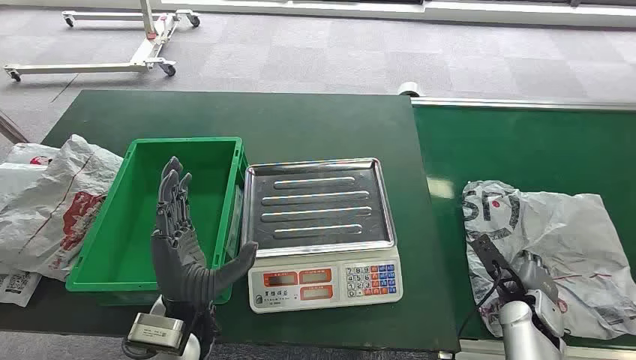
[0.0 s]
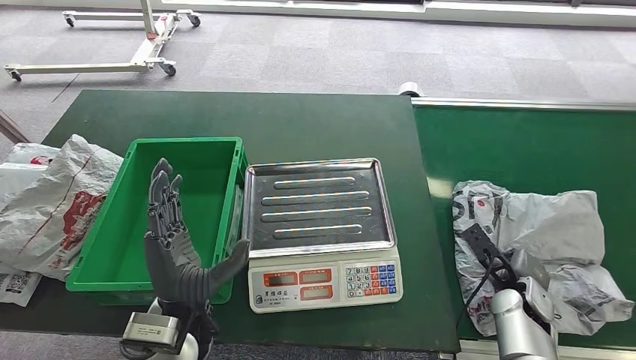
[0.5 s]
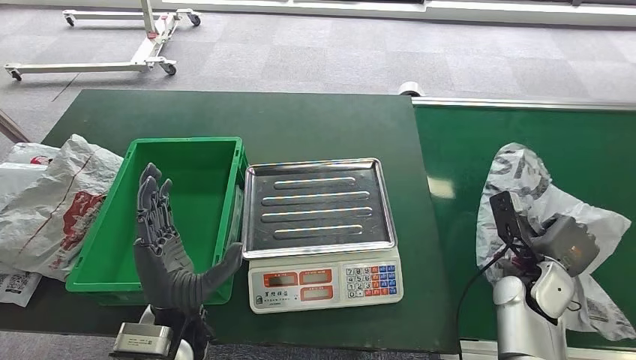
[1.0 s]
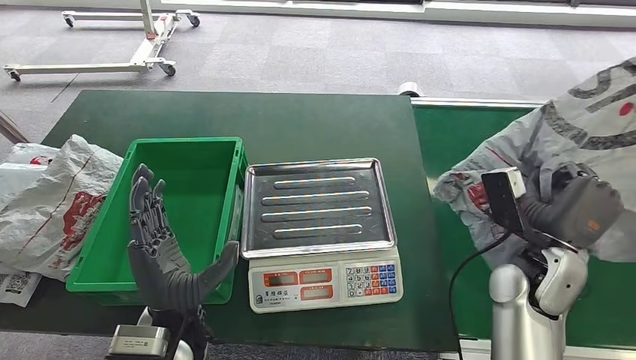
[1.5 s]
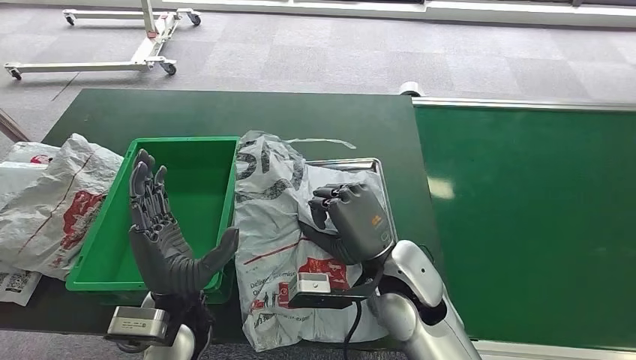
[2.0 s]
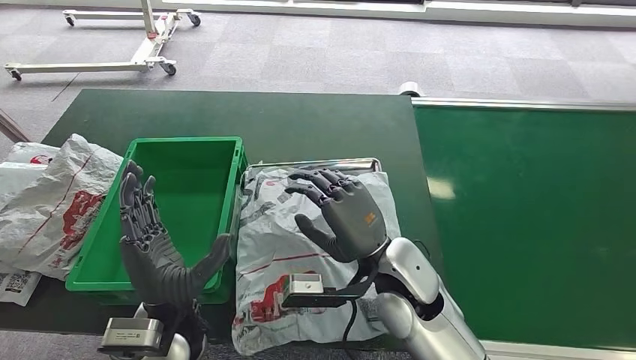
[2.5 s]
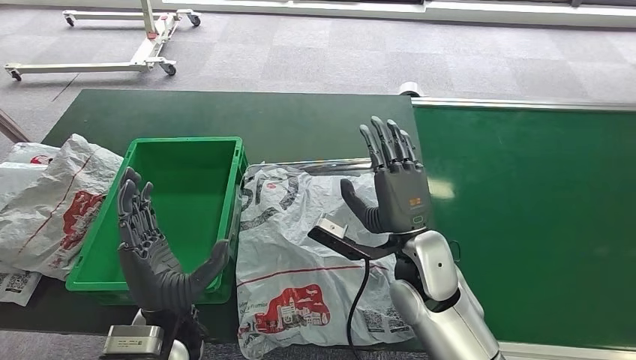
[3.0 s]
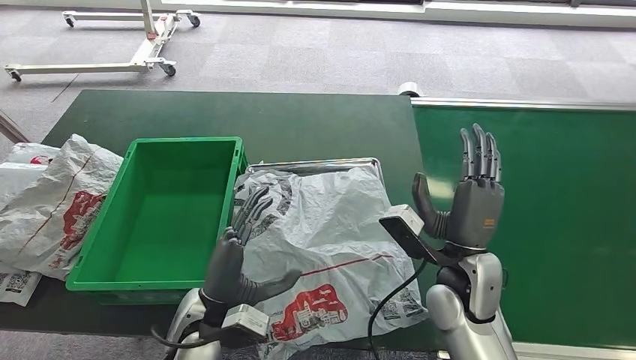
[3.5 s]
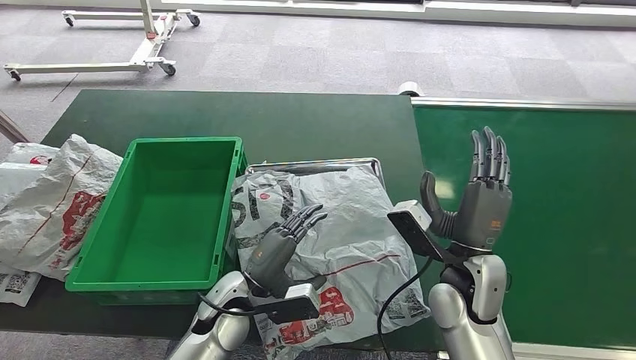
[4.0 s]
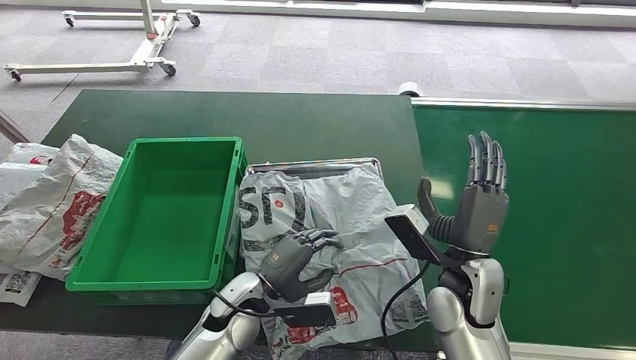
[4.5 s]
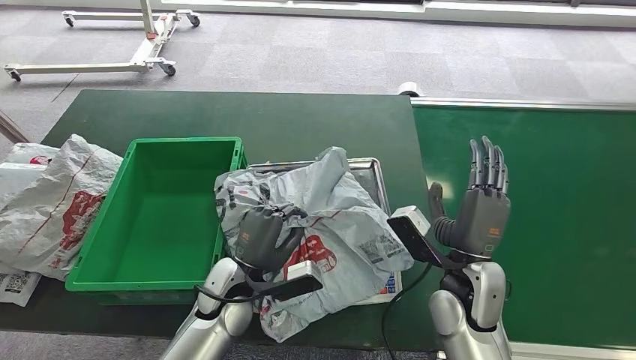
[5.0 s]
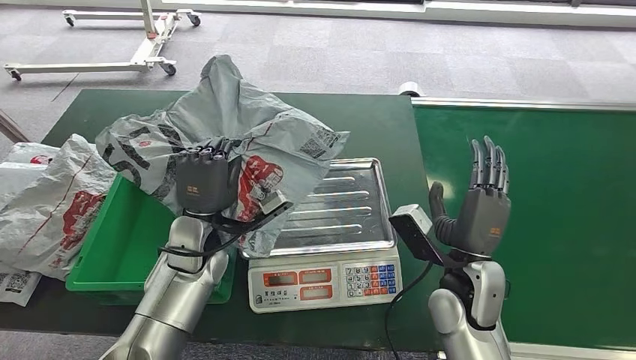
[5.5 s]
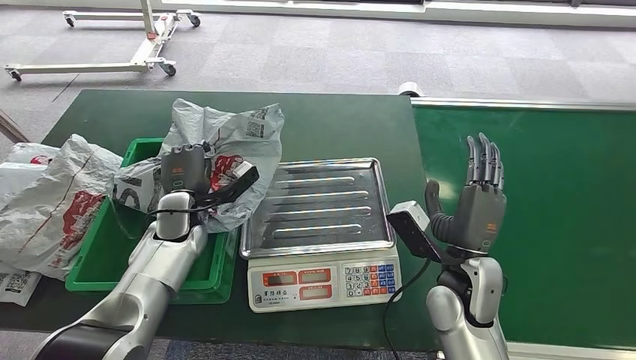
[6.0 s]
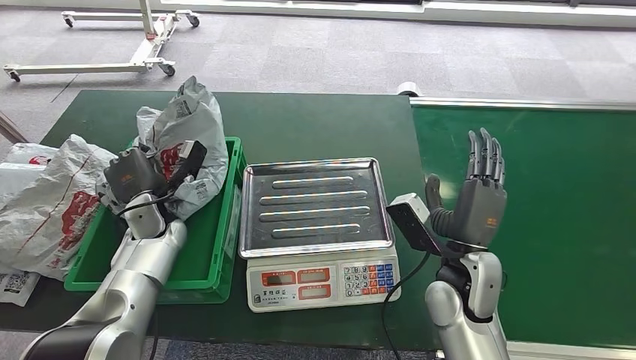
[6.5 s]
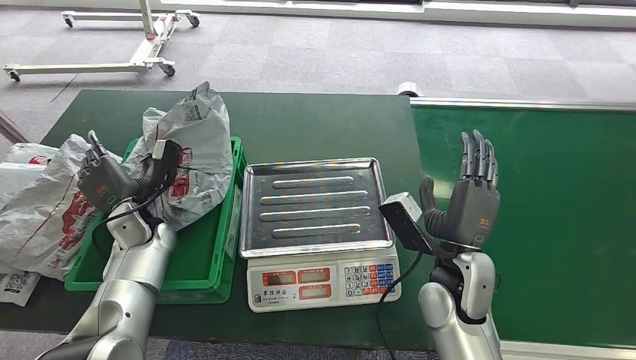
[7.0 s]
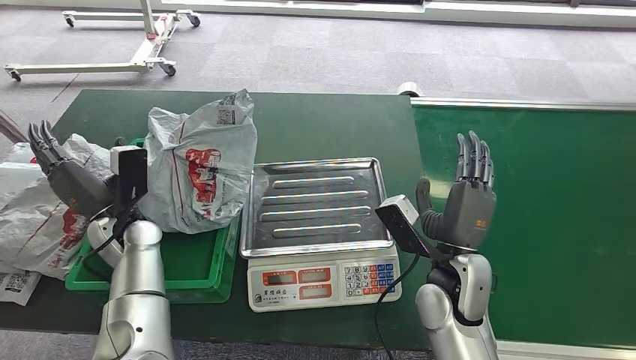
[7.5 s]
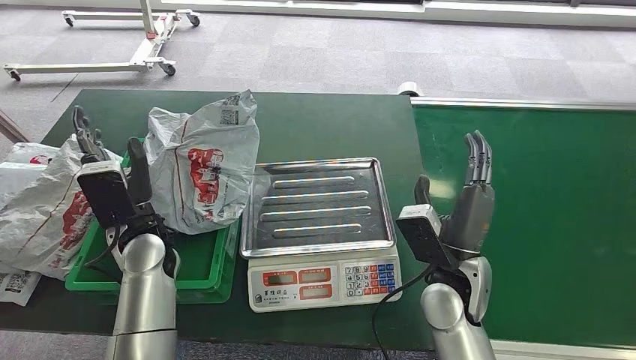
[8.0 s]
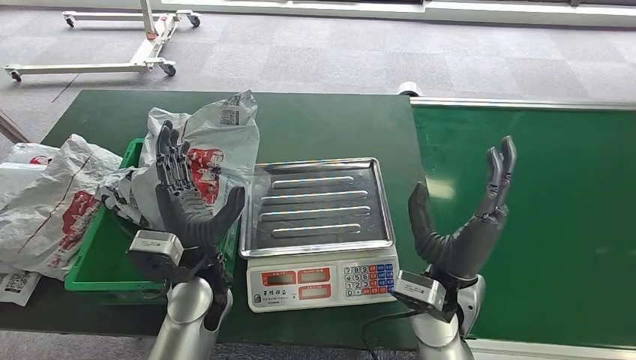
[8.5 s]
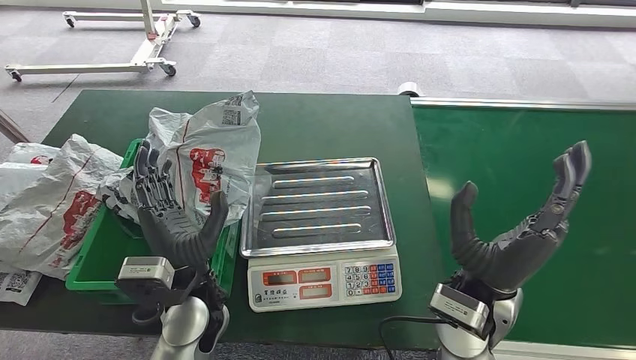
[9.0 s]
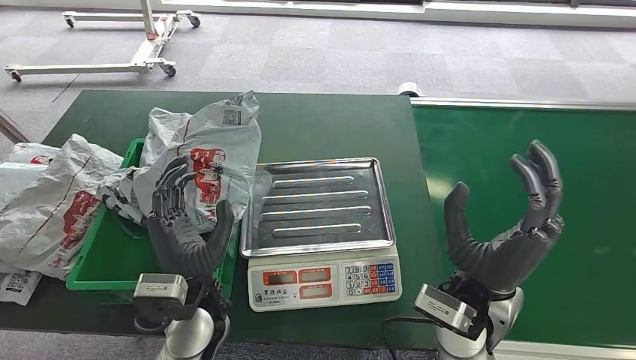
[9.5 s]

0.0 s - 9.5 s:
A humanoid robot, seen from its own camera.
Step, 0.0 s - 1.0 s: Pick up the package from the conveyor belt.
Step, 1.5 s - 3.0 s: Place the package onto the inbound machine.
Step, 3.5 s - 5.5 s: Pick up the package from the inbound machine.
Step, 6.0 s - 9.0 s: Place the package into the parcel locker.
7.5 s - 9.5 s: The left hand travels to the right and backward by some 20 cm. The right hand changes place by some 5 cm.
